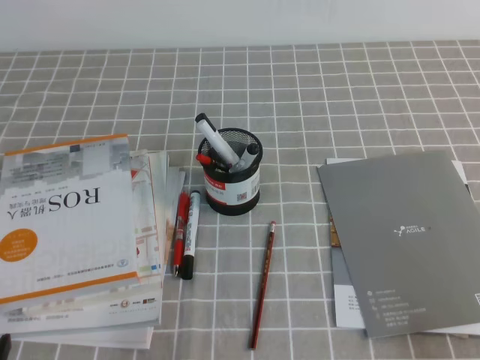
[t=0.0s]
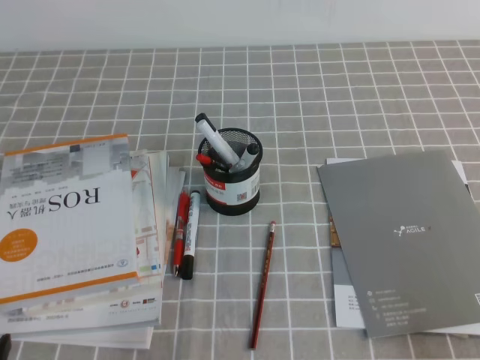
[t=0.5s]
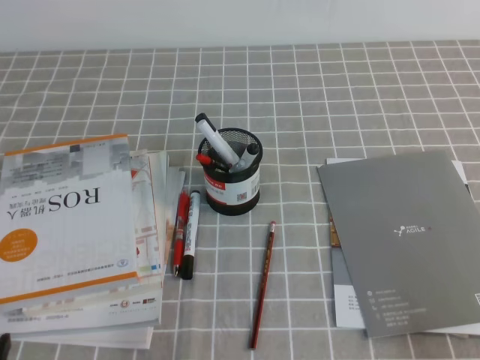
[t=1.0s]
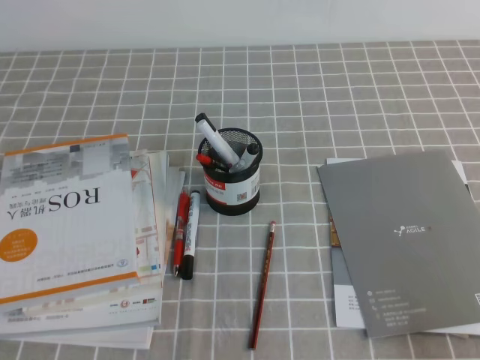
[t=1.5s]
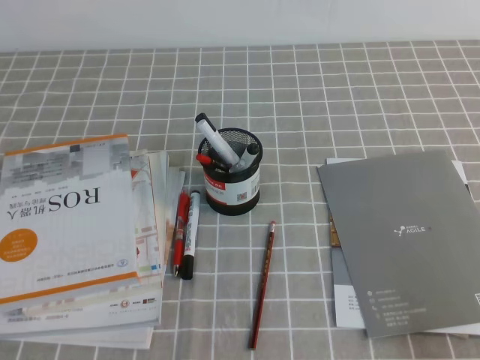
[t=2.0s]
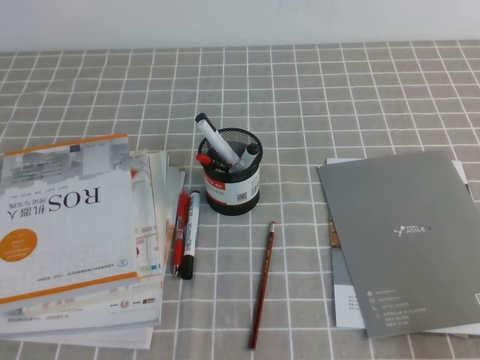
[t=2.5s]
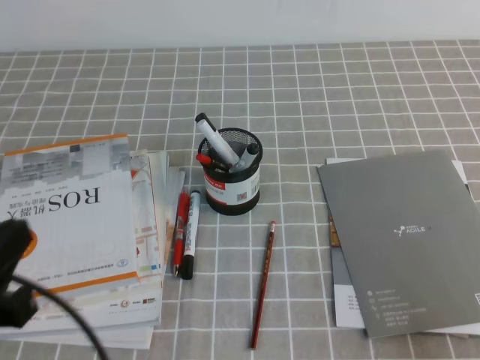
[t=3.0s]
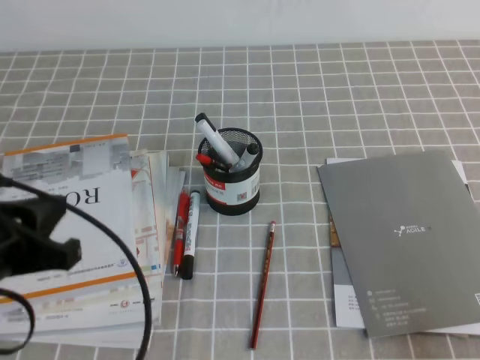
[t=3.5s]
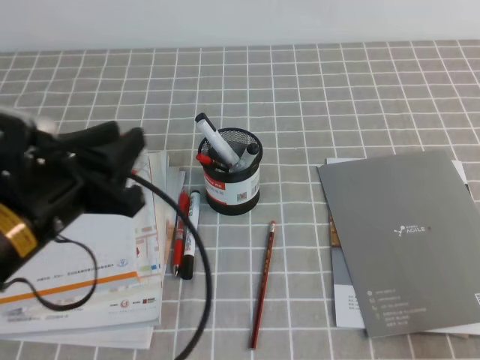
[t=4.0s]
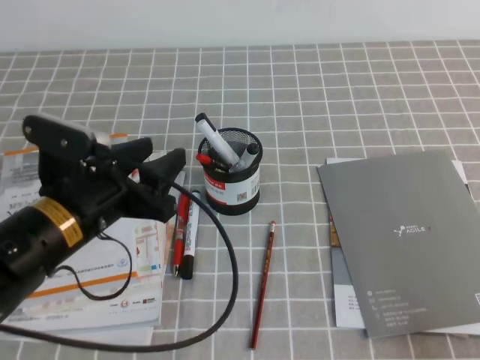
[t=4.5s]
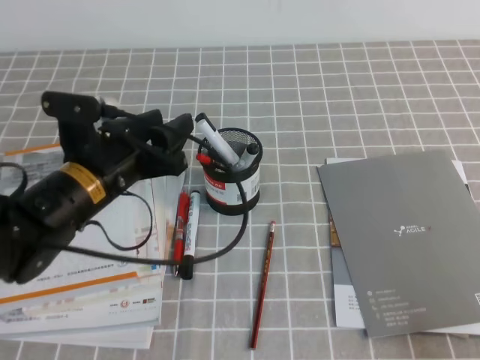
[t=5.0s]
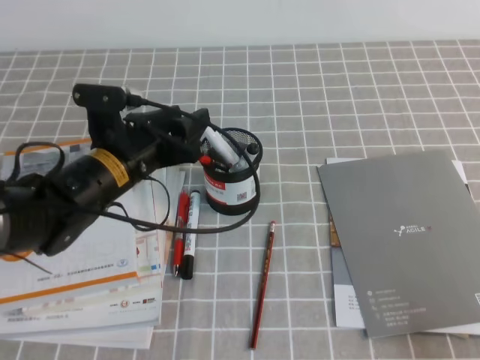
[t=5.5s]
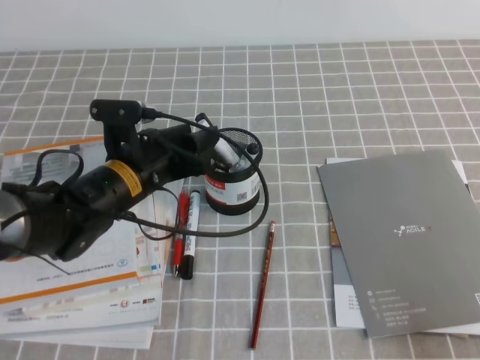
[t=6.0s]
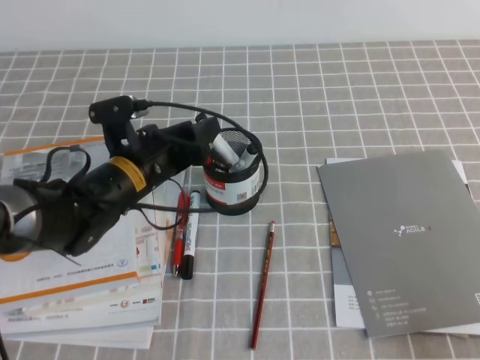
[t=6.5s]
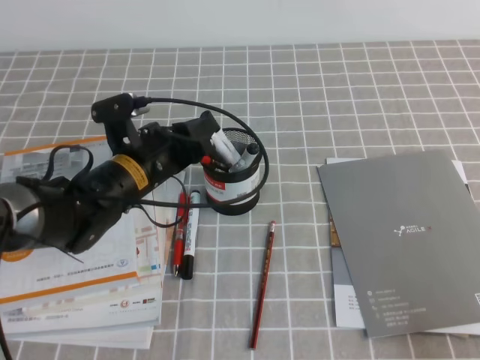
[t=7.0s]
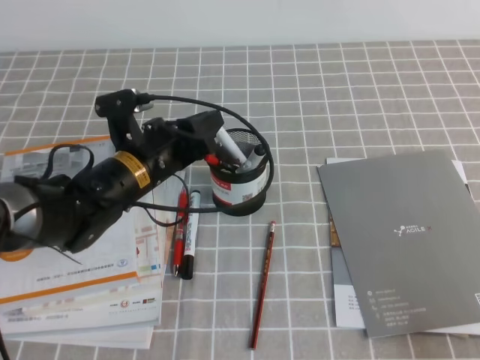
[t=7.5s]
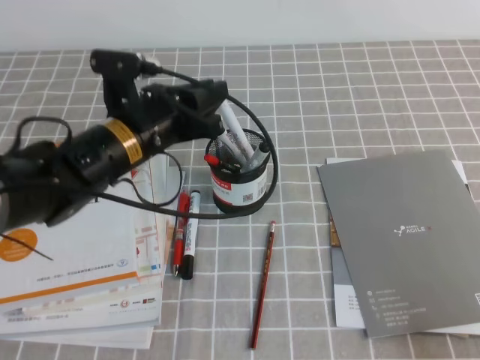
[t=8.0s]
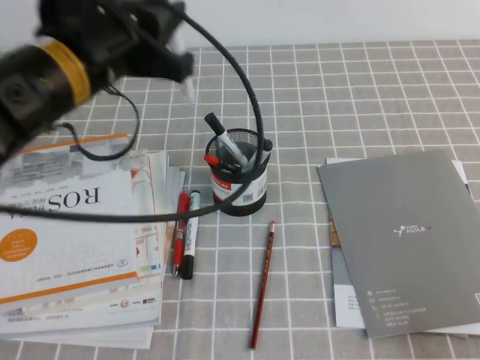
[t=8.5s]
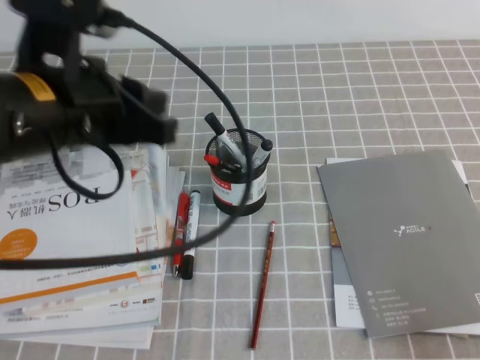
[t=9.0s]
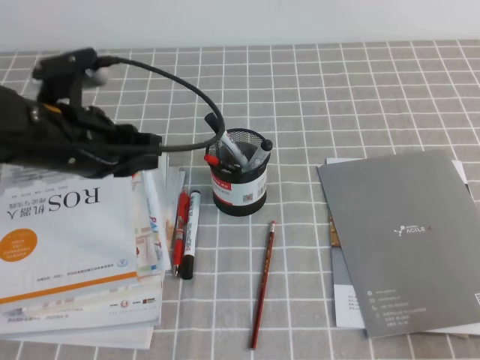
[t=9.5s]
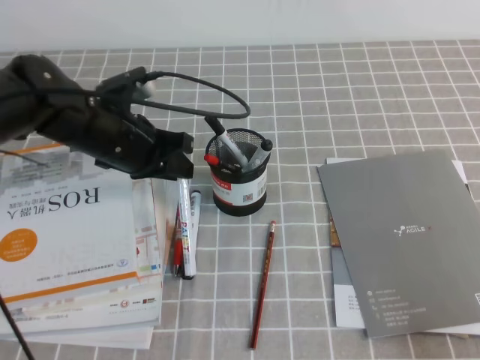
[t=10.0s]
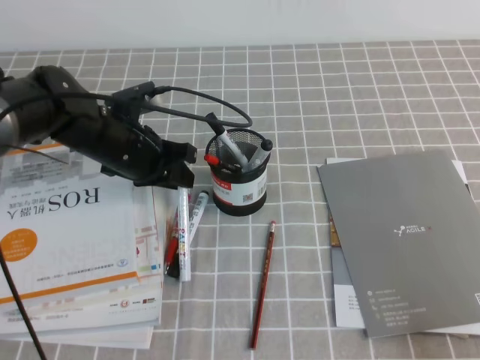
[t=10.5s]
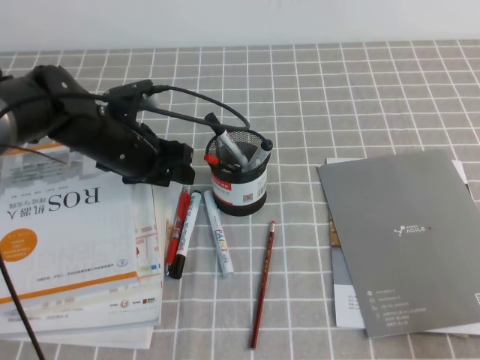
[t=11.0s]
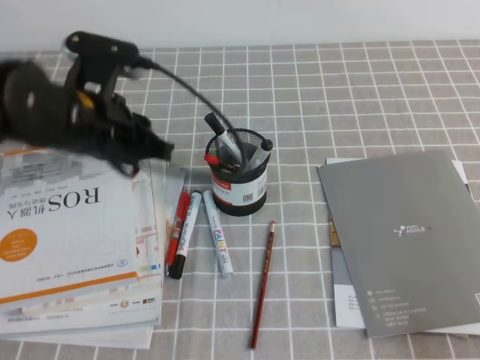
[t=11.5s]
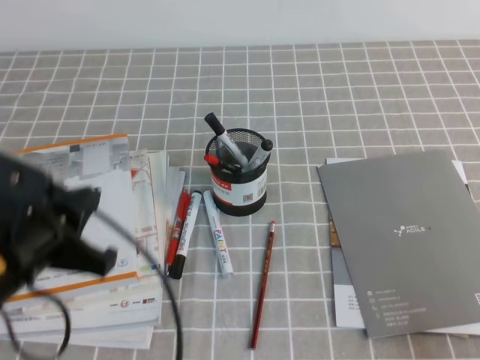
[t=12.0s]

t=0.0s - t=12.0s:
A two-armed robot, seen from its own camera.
t=2.0s - t=4.0s: The left gripper shifts roughly 20 cm forward, to the right and upward, and closes and opens again.
t=4.0s - t=6.0s: The left gripper heads forward, downward and to the right, covering about 15 cm, and opens.
t=6.0s - t=8.0s: The left gripper moves upward, roughly 5 cm, and closes.
t=8.0s - t=10.0s: The left gripper goes upward and returns, approximately 10 cm each way.
t=10.0s - t=12.0s: The left gripper heads backward, covering roughly 15 cm, and opens and closes again.

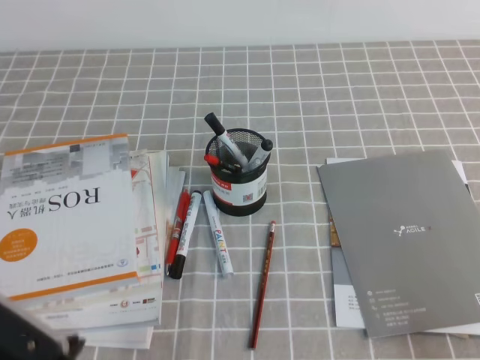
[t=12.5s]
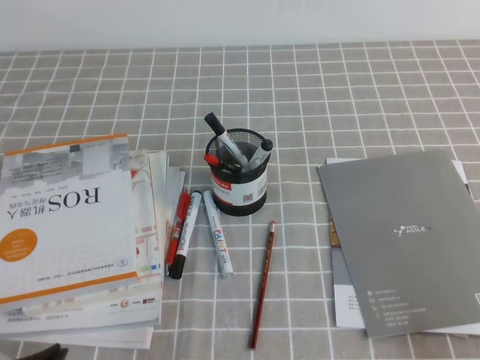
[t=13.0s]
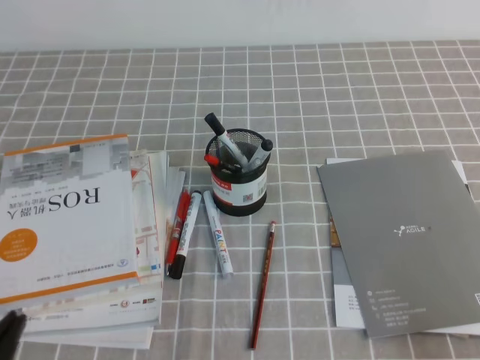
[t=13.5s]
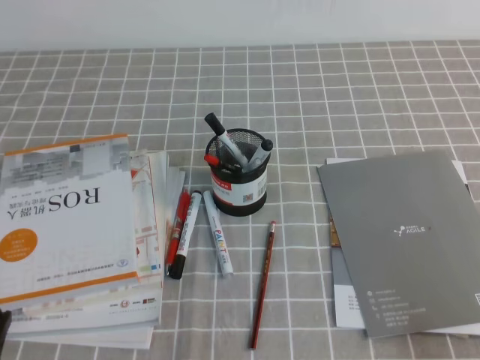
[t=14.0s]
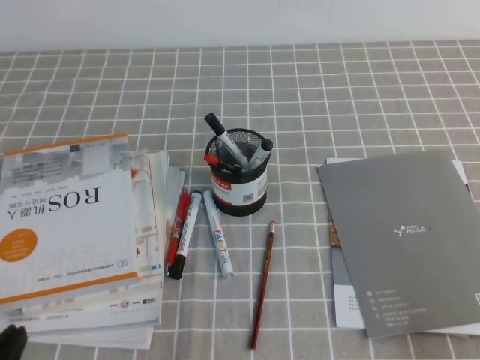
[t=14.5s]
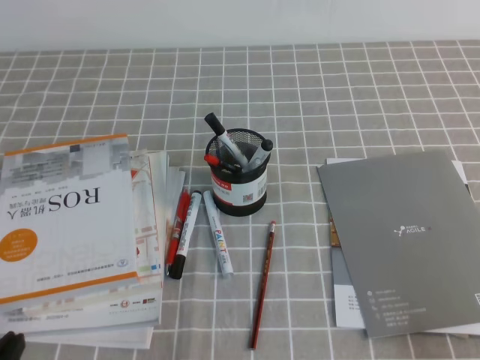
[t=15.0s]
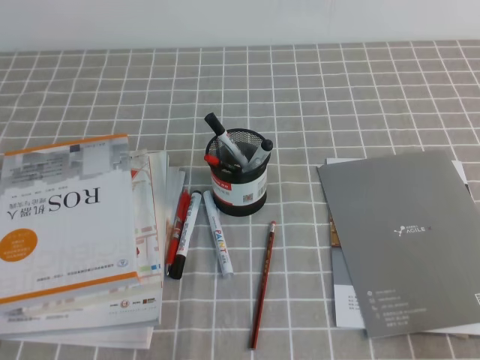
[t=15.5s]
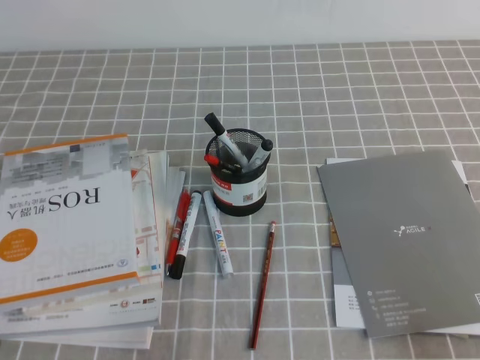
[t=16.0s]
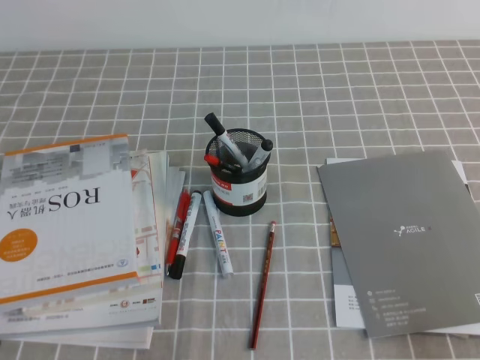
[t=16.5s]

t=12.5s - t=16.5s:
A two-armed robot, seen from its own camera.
Step, t=12.5s - t=16.5s: Pick up the pen from the pen holder.
t=12.5s - t=14.5s: The left gripper travels backward by roughly 5 cm.
